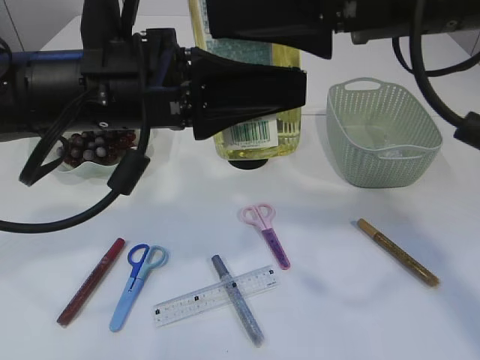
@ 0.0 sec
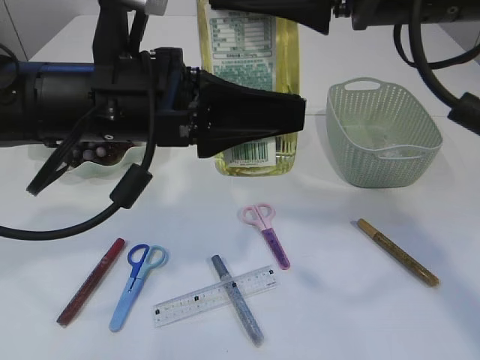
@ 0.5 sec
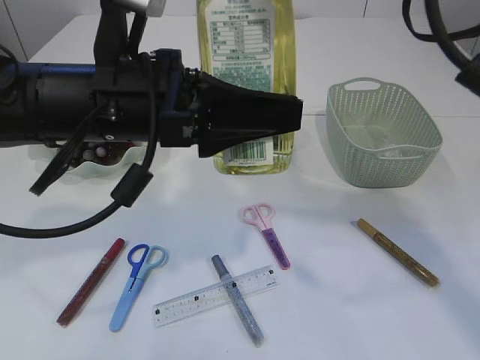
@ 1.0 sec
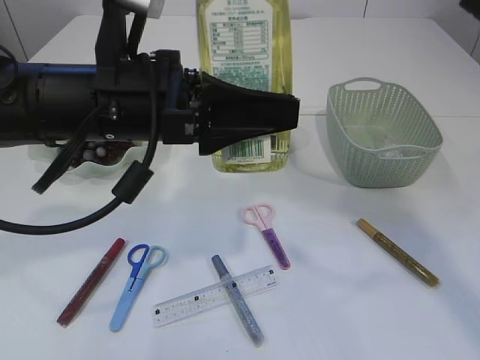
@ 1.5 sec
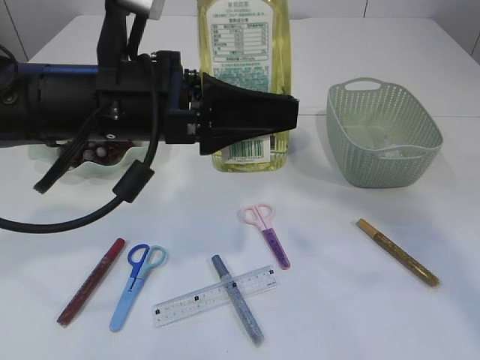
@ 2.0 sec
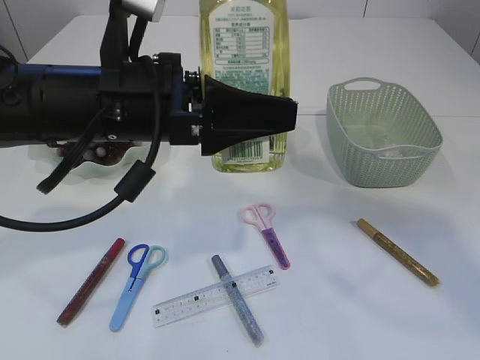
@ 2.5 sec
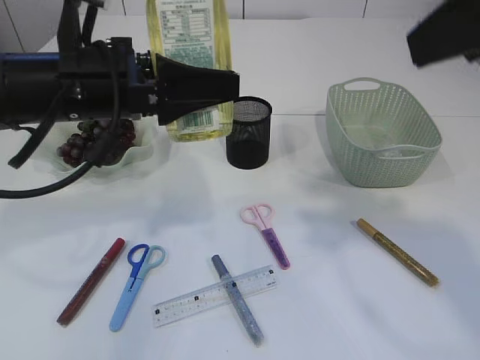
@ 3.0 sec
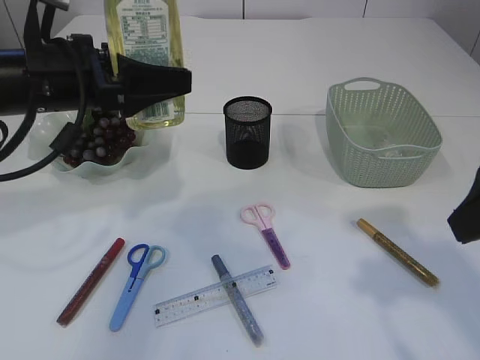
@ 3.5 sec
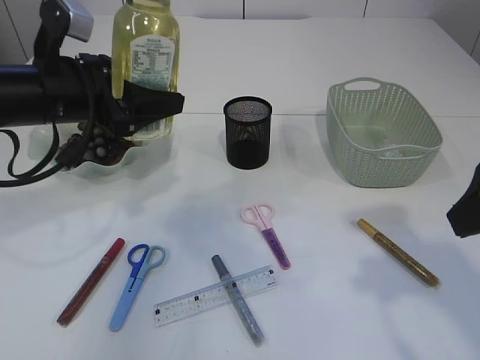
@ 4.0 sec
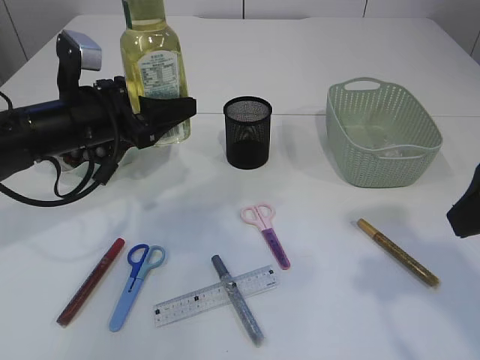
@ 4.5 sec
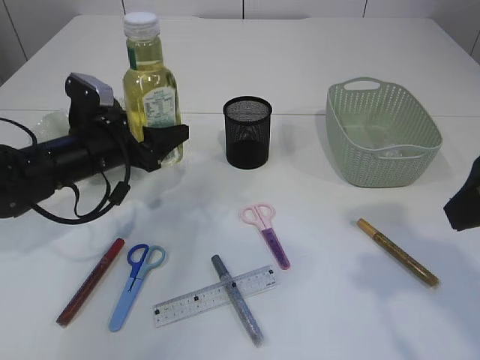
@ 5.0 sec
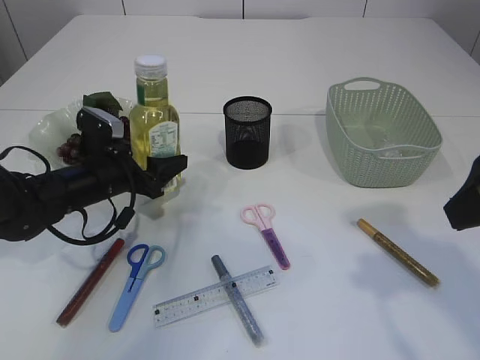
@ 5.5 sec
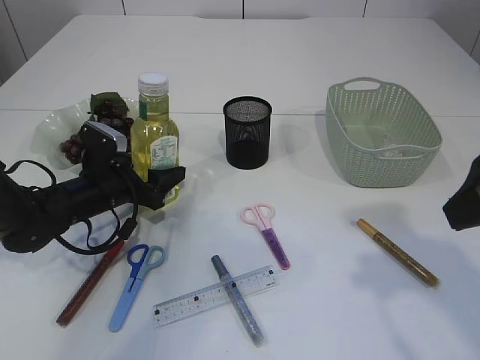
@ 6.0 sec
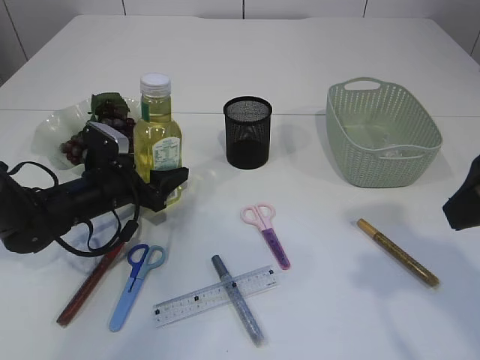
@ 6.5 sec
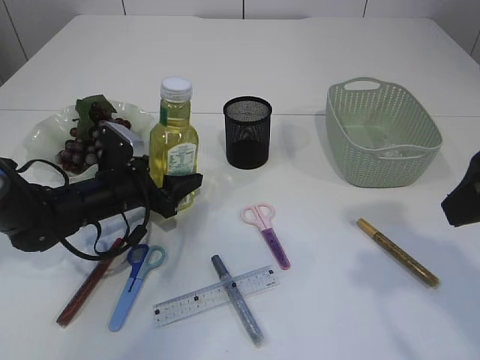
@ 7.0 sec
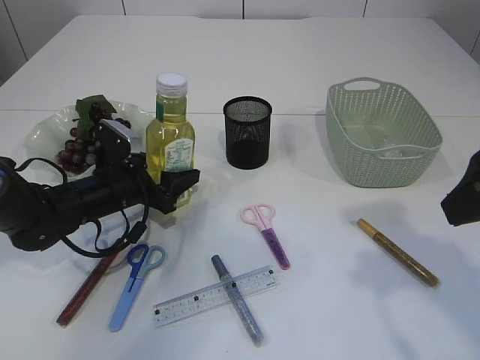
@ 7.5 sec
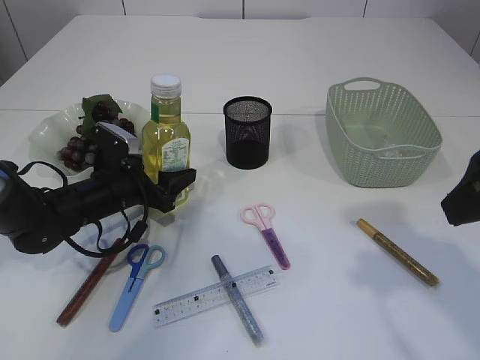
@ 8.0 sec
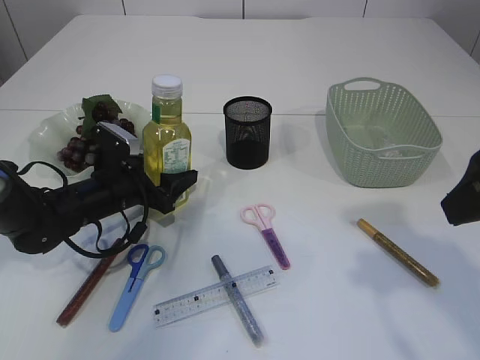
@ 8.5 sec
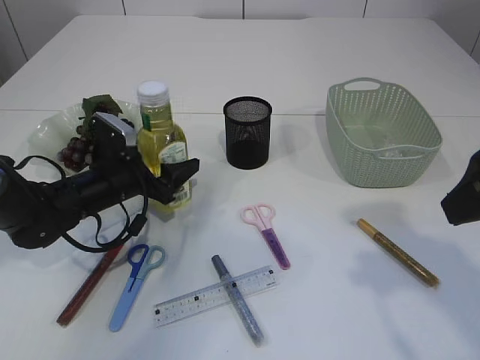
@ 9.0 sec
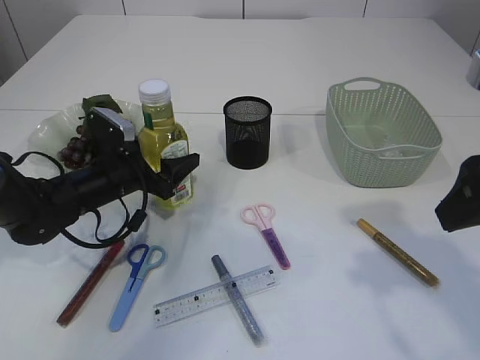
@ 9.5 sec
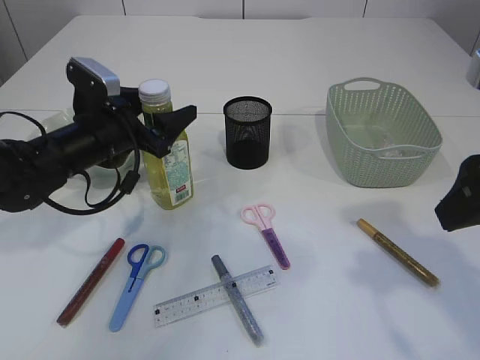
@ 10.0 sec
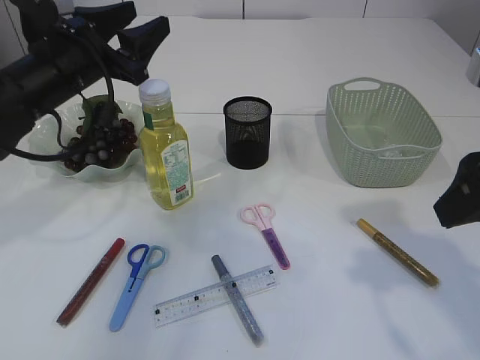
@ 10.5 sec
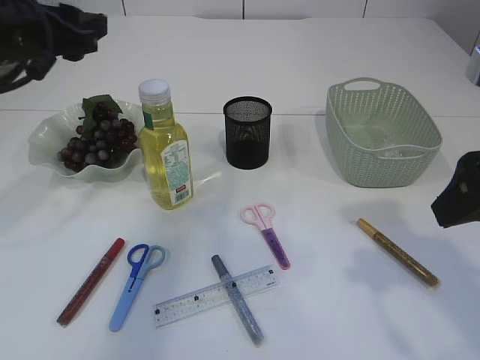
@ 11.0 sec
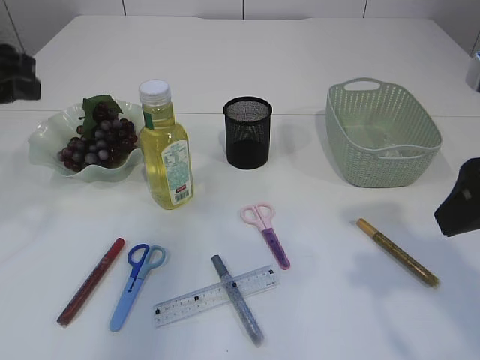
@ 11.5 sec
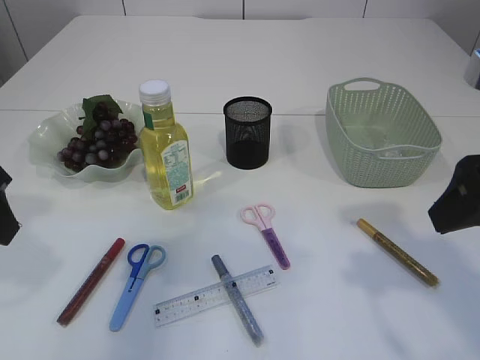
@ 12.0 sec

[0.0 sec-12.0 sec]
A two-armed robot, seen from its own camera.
Step, 2.0 sec to 10.0 sec: Place the bottle.
0.0 sec to 2.0 sec: The right gripper is displaced upward by roughly 10 cm.
2.0 sec to 4.0 sec: The left gripper shifts approximately 10 cm to the left and forward; the right gripper goes some 20 cm downward, to the right and backward.
4.0 sec to 6.0 sec: The left gripper is displaced downward by about 20 cm.
6.0 sec to 8.0 sec: The grippers make only small movements.
8.0 sec to 10.0 sec: The left gripper heads upward, covering some 10 cm.
10.0 sec to 12.0 sec: The left gripper is displaced backward, upward and to the left by about 20 cm.

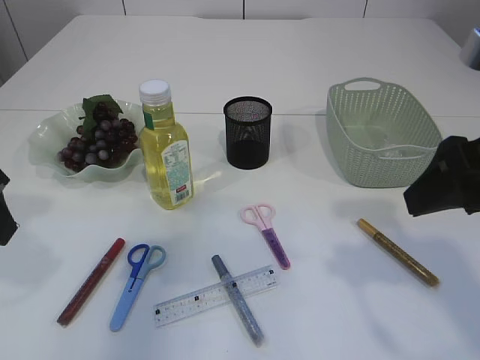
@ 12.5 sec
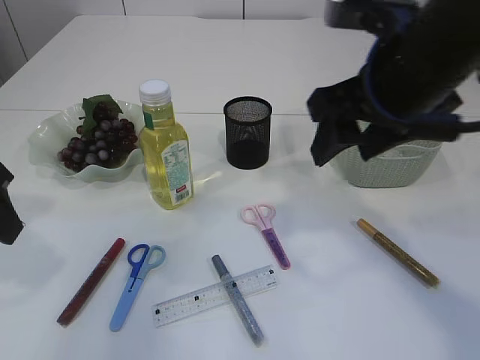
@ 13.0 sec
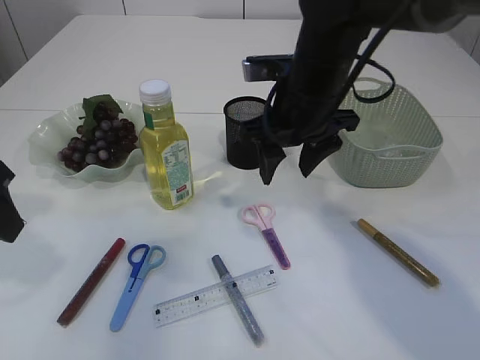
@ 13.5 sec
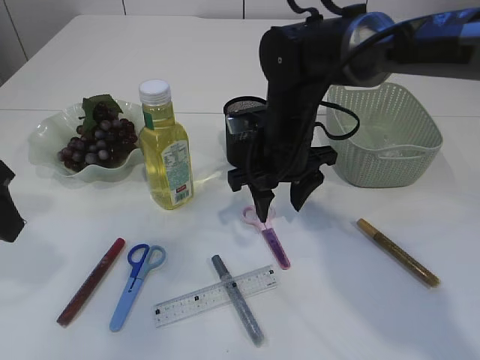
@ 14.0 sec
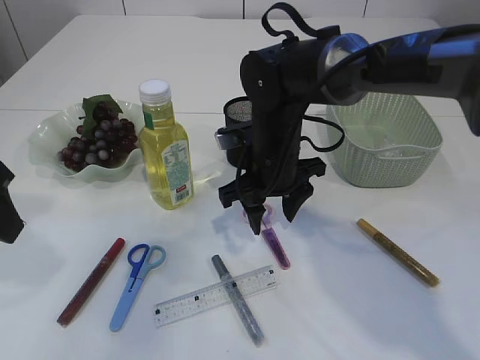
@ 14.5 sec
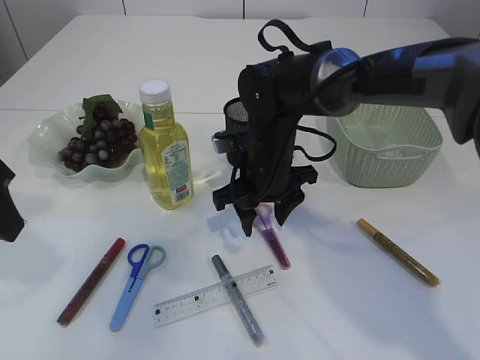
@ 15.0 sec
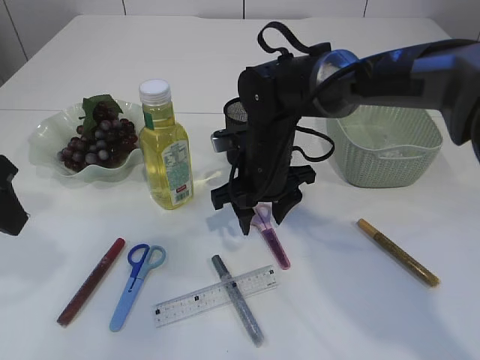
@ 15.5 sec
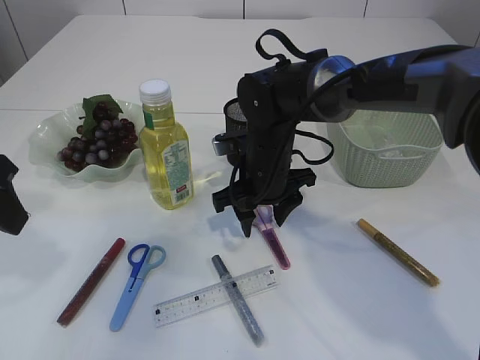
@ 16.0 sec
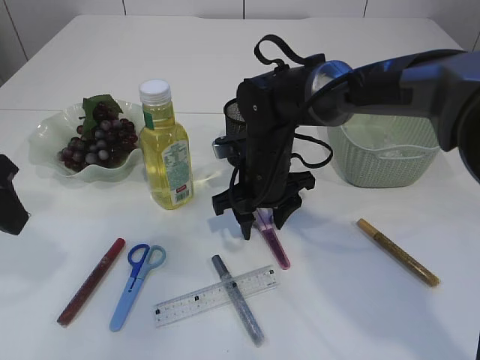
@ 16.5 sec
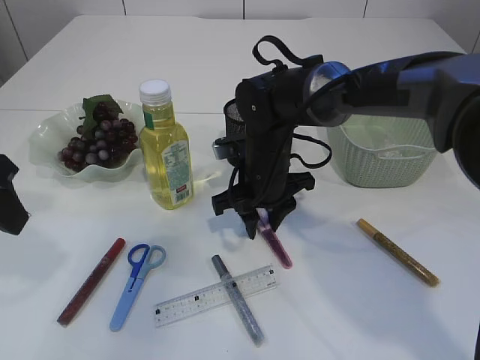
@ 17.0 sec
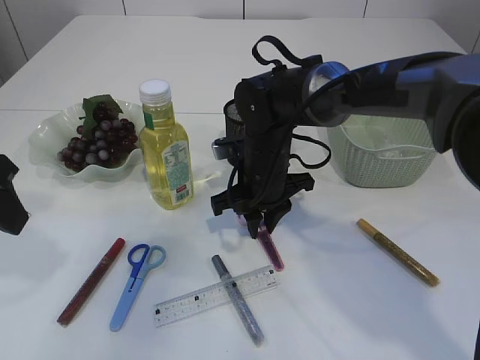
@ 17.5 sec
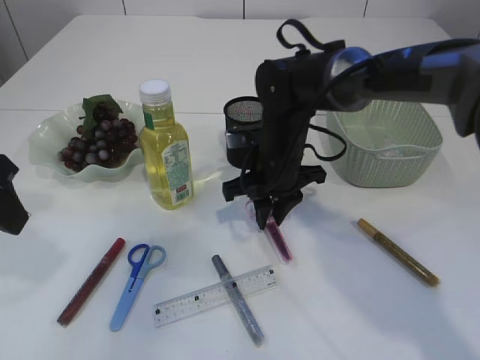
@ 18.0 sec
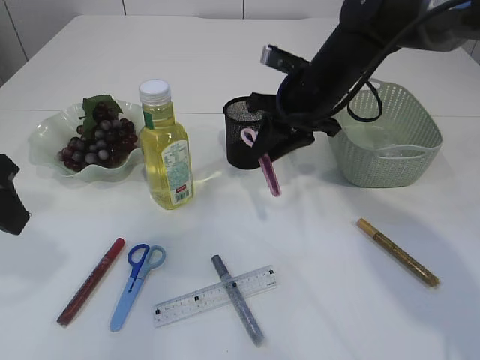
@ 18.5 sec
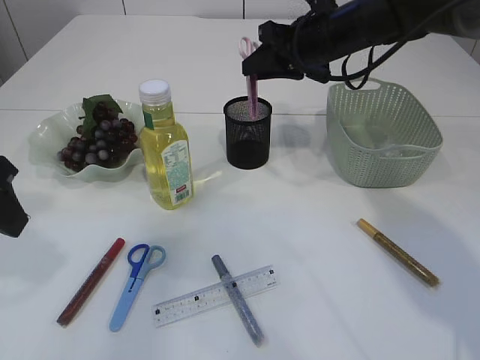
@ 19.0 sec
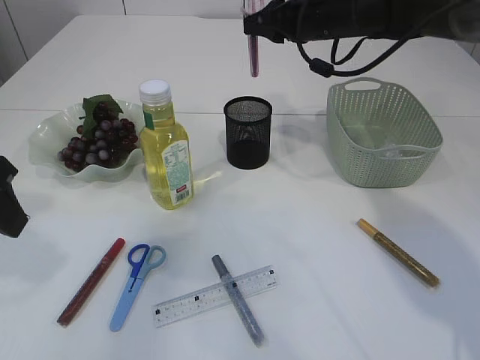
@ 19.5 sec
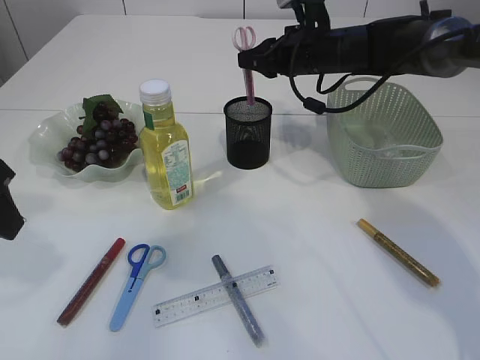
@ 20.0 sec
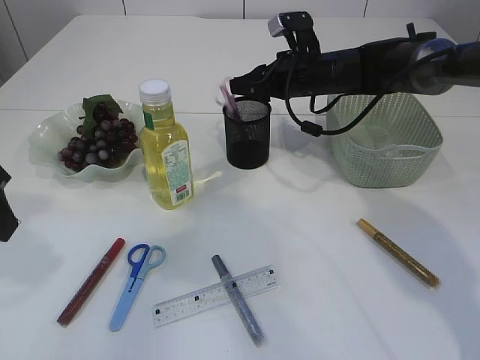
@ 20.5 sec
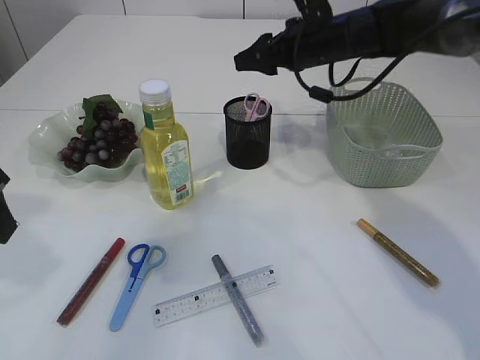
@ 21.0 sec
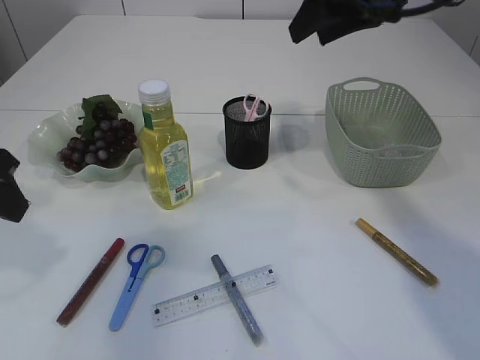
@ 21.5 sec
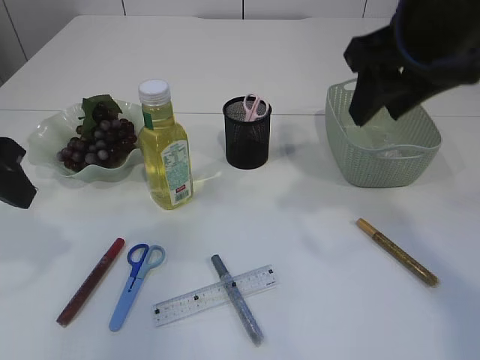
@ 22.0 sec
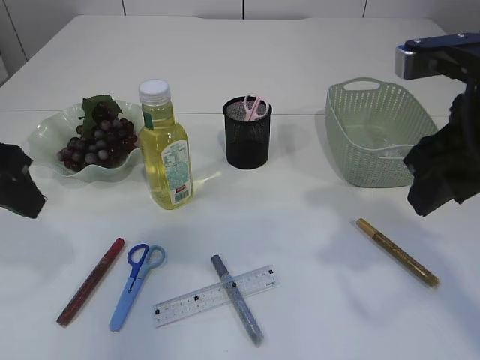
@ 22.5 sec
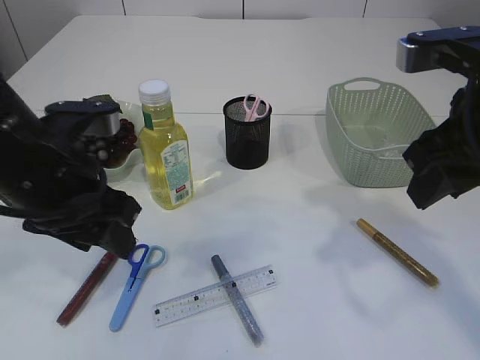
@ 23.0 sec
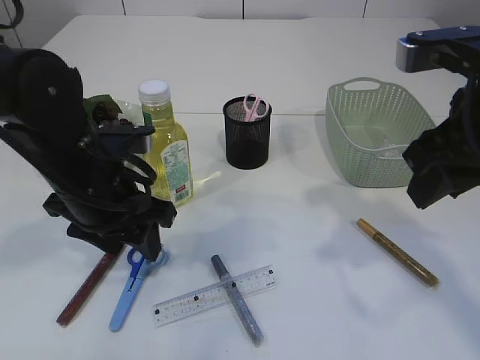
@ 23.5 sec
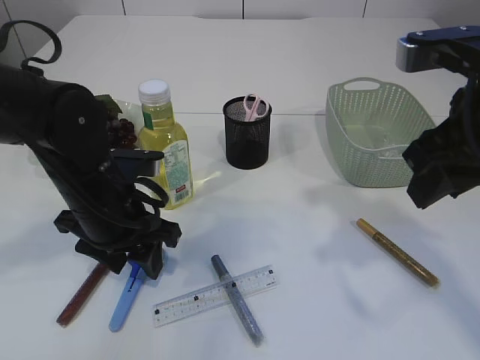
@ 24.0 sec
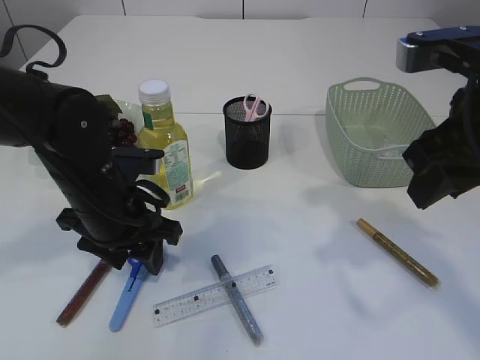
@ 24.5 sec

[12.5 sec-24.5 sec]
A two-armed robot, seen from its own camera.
Step, 12.5 sec to 18.0 sec: pick up the pink scissors.
Step, 18.5 sec to 21.0 sec: Place the pink scissors into the pen holder.
12.5 sec to 14.5 sec: The right gripper is displaced forward, to the left and downward by about 30 cm.
14.5 sec to 16.5 sec: The grippers stay close to where they were, moving slightly.
16.5 sec to 18.5 sec: The right gripper is displaced upward and to the right by approximately 10 cm, and closes up.
18.5 sec to 20.5 sec: The right gripper shifts approximately 10 cm forward, and goes upward and returns, approximately 5 cm each way.
20.5 sec to 22.5 sec: The right gripper heads backward and upward, covering roughly 30 cm.
22.5 sec to 24.5 sec: The left gripper travels downward and to the right by approximately 15 cm.

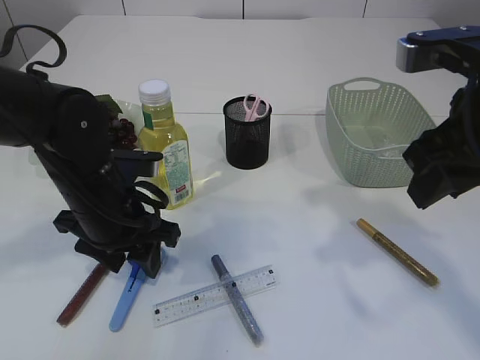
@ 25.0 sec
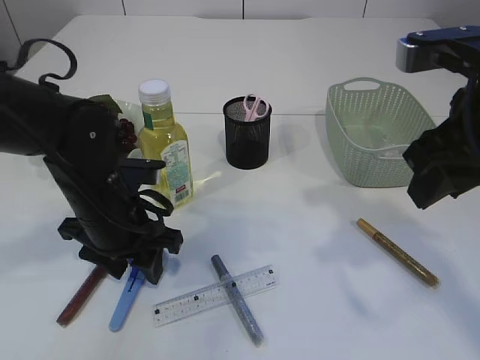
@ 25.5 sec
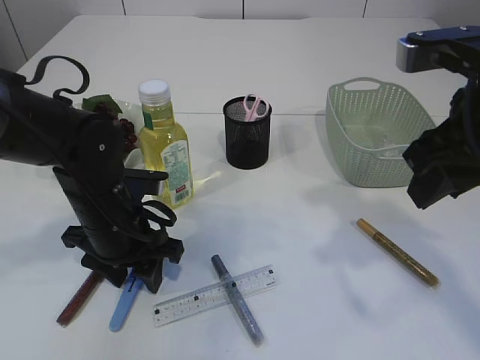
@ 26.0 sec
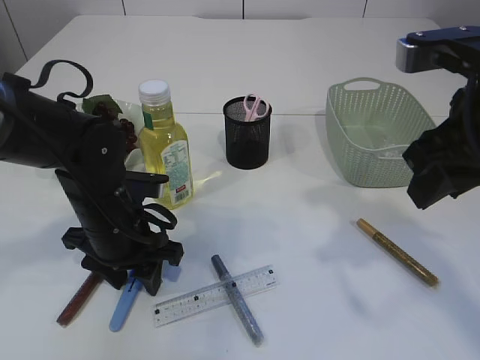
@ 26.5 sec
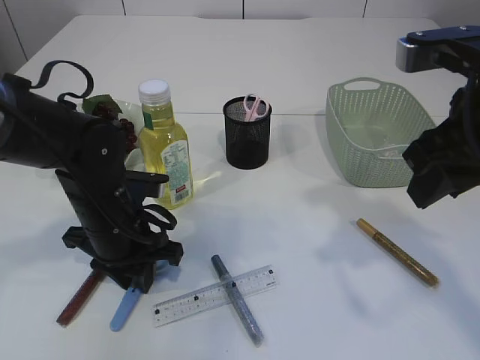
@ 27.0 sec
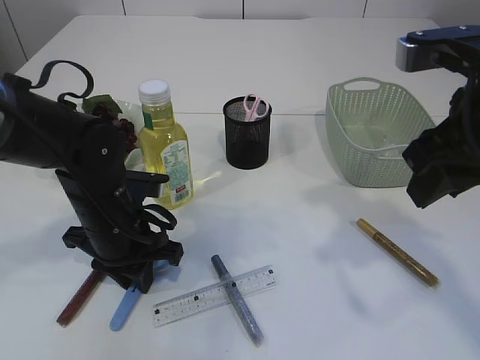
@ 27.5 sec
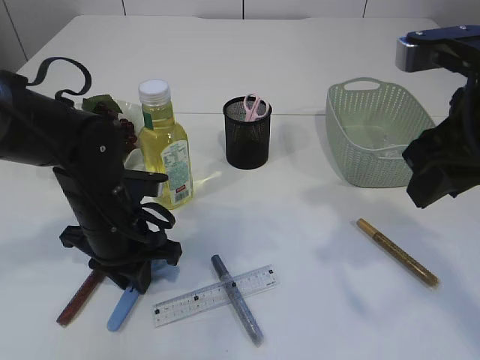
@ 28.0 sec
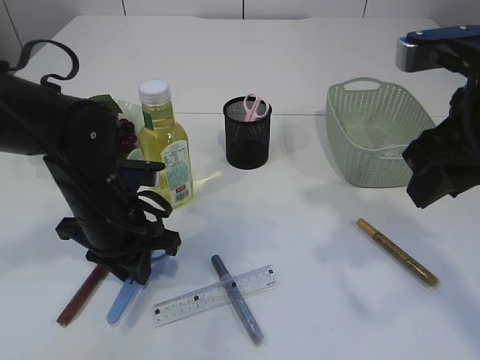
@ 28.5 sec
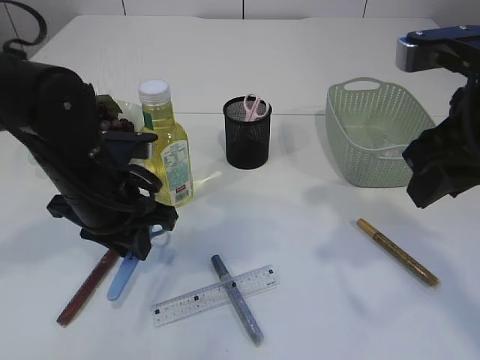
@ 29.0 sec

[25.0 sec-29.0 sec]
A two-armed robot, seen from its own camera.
25.0 sec to 27.0 sec: There are only small adjustments of the grippers.
27.0 sec to 29.0 sec: The left gripper moves upward, roughly 5 cm.
